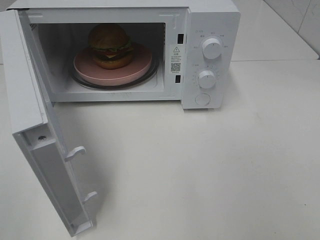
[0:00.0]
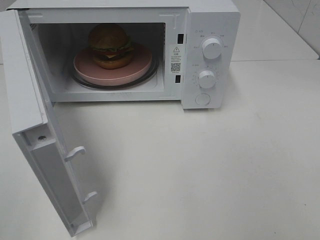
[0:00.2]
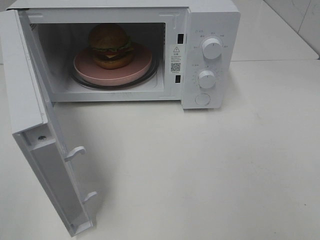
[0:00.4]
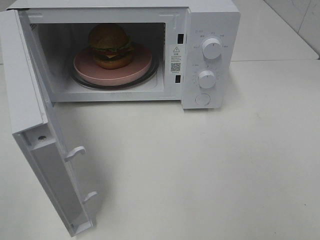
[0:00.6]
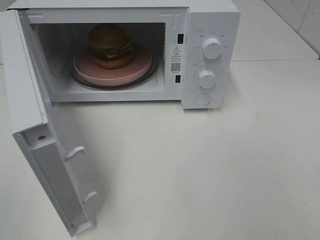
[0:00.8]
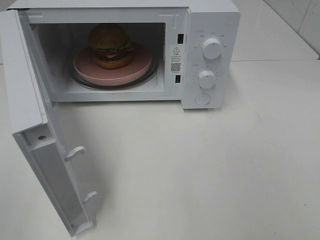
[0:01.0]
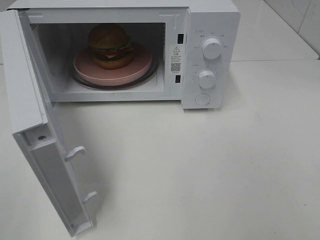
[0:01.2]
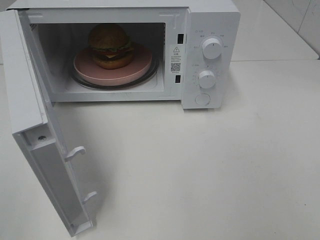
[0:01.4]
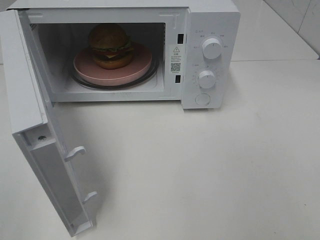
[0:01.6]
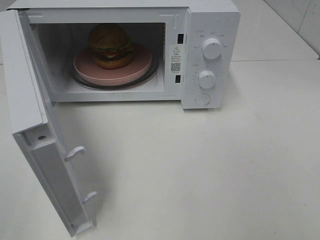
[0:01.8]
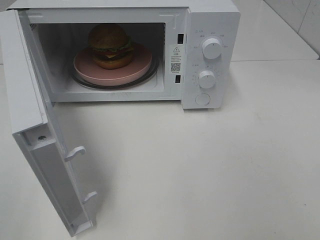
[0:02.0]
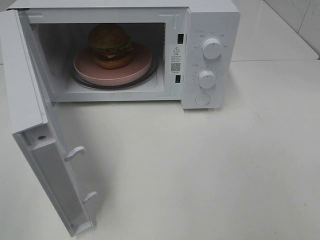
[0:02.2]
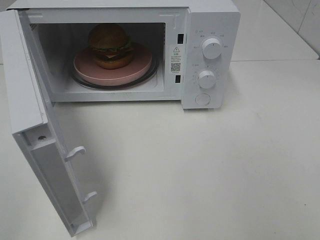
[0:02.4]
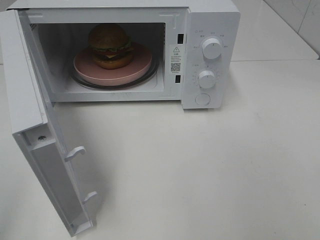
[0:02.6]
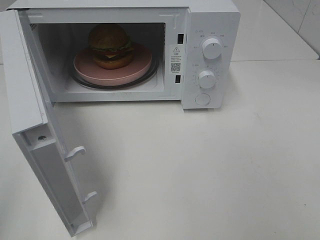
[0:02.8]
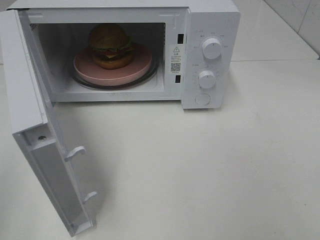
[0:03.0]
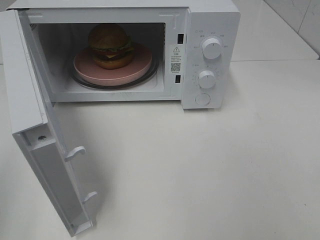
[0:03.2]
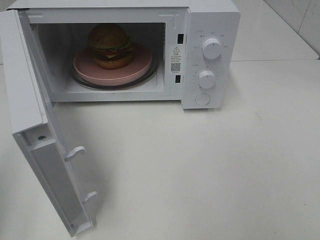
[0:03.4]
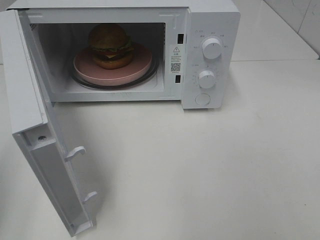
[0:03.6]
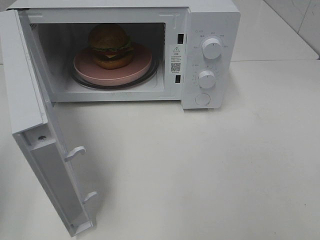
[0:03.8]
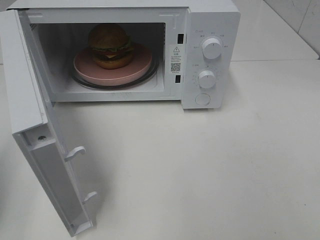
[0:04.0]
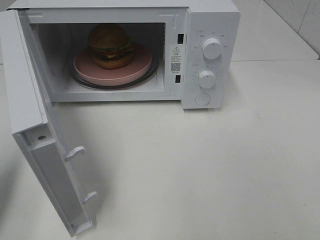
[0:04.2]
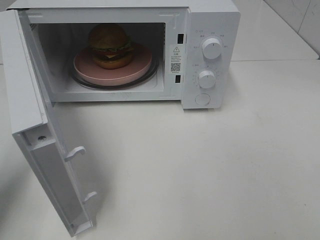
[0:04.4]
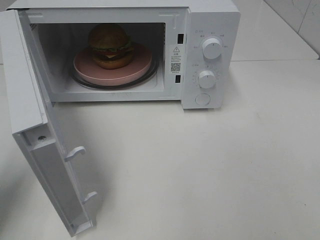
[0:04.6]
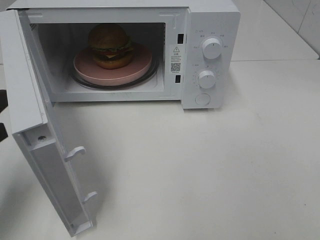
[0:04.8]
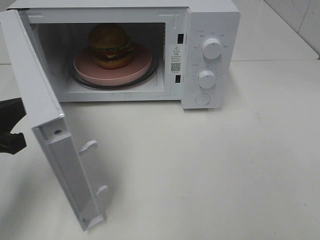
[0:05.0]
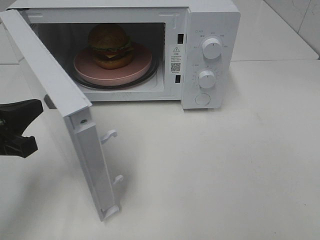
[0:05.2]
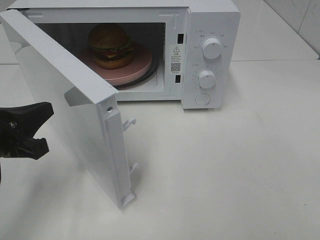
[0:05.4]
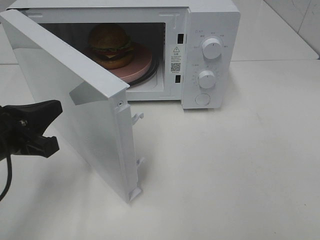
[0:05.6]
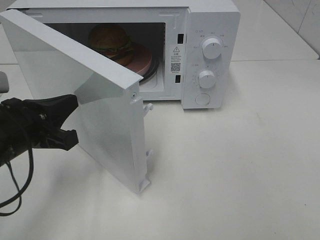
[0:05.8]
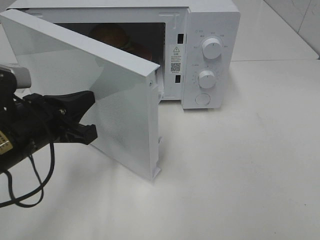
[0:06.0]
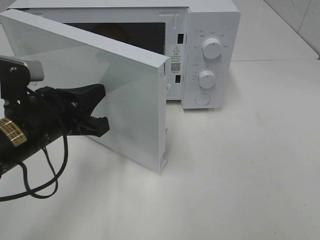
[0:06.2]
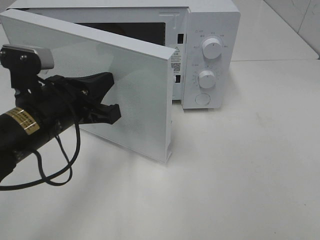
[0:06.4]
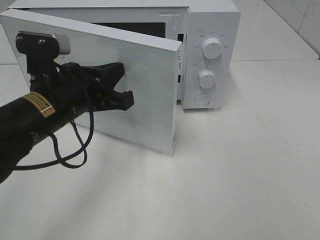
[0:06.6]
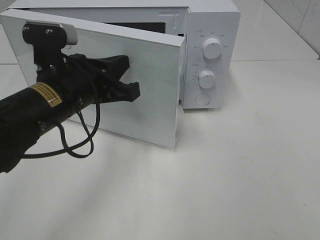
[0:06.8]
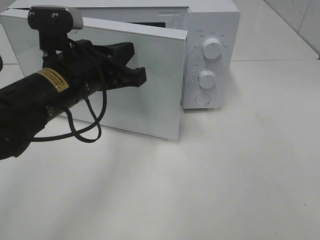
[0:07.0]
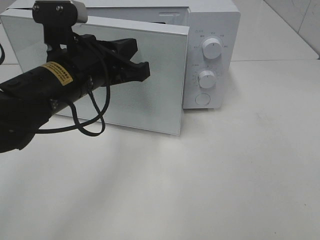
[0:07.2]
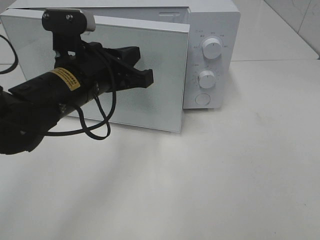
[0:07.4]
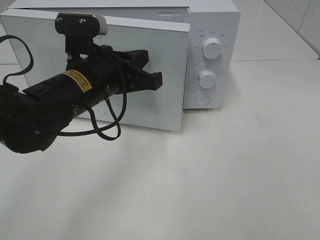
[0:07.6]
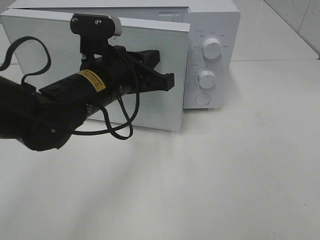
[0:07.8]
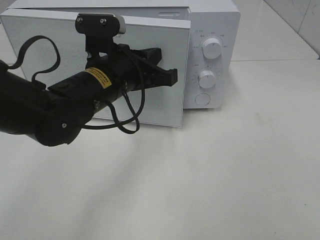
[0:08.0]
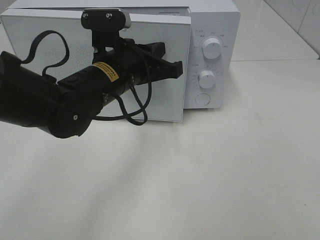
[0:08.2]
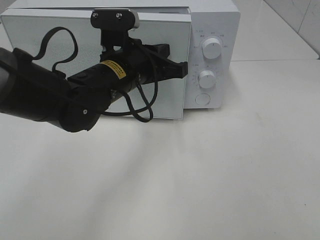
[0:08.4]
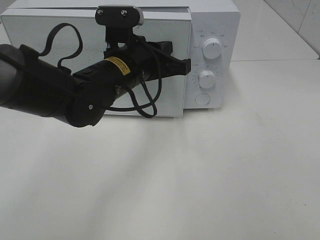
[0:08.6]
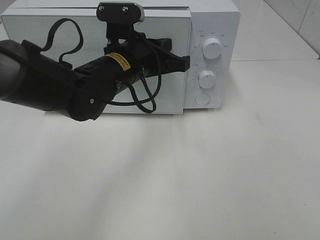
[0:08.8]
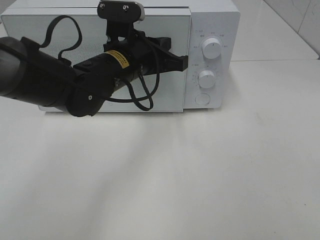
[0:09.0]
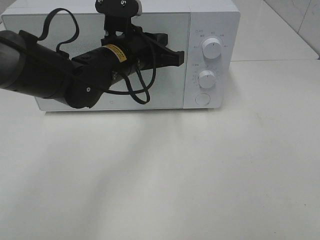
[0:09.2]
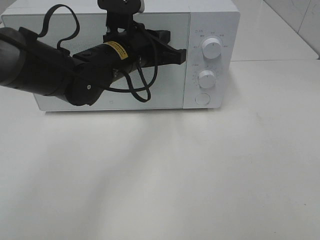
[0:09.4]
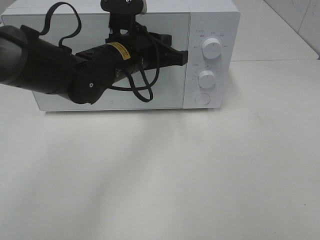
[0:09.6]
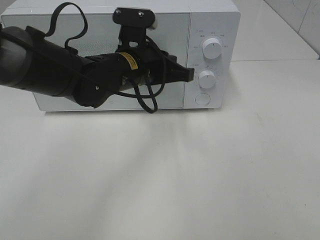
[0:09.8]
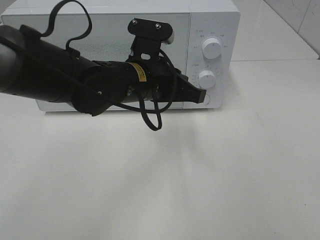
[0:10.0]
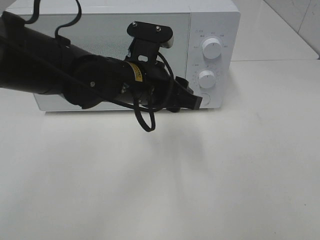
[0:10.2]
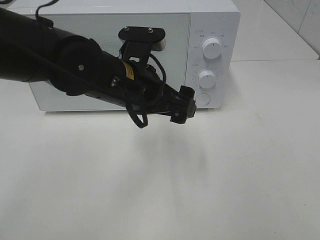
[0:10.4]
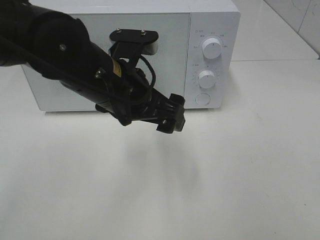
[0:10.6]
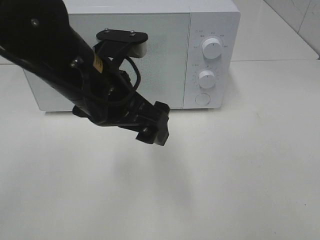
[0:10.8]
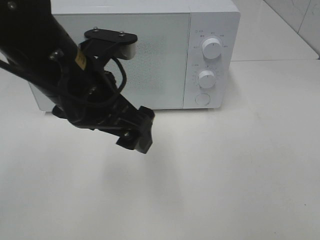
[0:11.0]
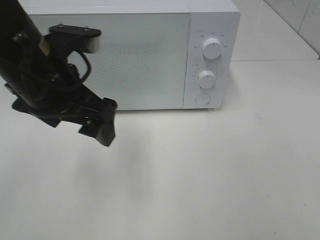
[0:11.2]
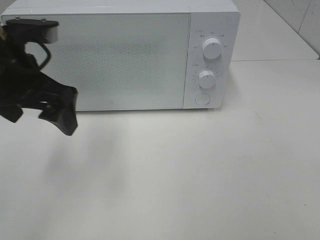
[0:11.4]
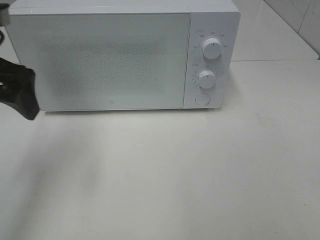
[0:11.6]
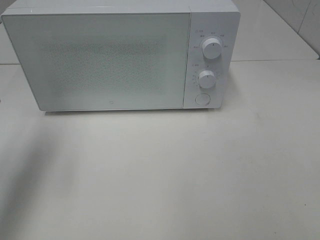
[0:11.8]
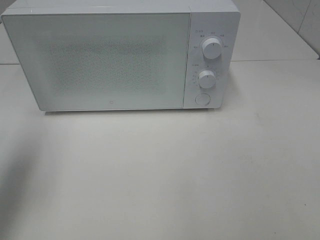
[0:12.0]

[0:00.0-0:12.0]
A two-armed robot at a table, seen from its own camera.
Task of the whole recording: Heat the burger.
Step, 0:00.0 to 0:09.6: Left hand: close the microwave door.
0:03.0 to 0:04.4: The left gripper travels forward and downward by some 15 cm.
0:04.4 to 0:06.0: The left gripper moves to the right, some 15 cm.
0:06.0 to 0:07.6: The left gripper moves to the right and forward, approximately 10 cm.
0:07.6 to 0:09.0: The left gripper travels forward by some 5 cm.
0:09.0 to 0:10.4: The left gripper is displaced backward by about 5 cm, and opens its fingers.
0:10.4 to 0:12.0: The left gripper heads to the left, covering some 25 cm.

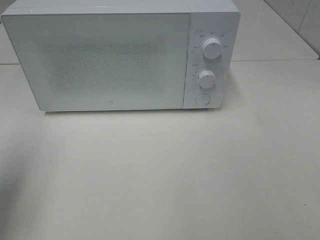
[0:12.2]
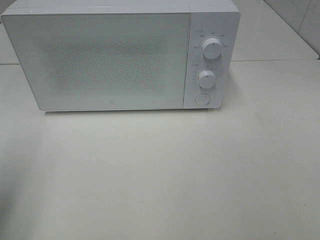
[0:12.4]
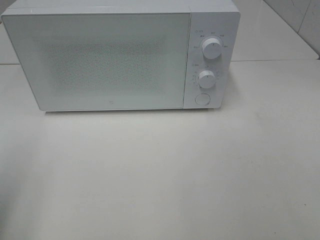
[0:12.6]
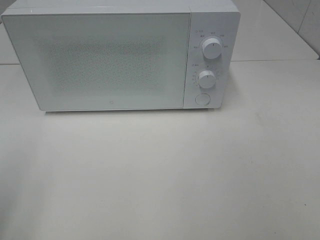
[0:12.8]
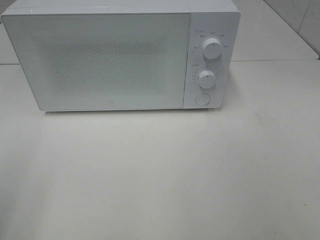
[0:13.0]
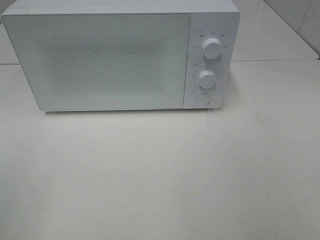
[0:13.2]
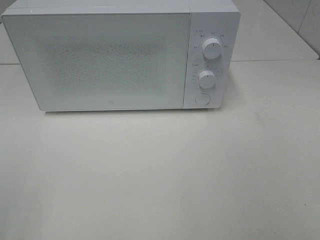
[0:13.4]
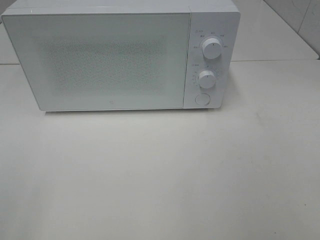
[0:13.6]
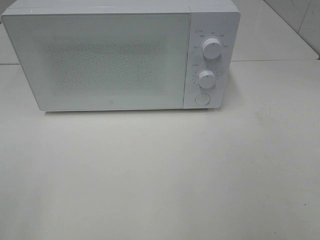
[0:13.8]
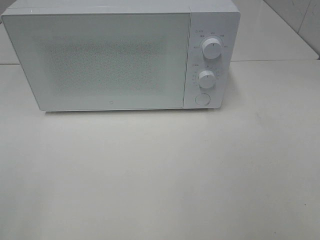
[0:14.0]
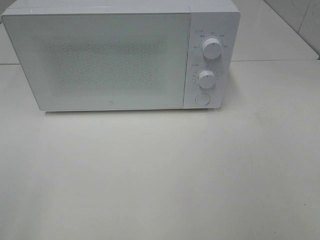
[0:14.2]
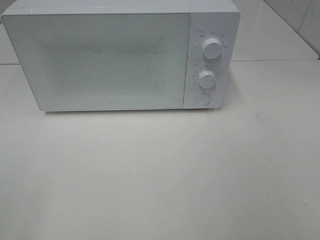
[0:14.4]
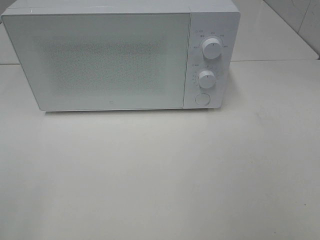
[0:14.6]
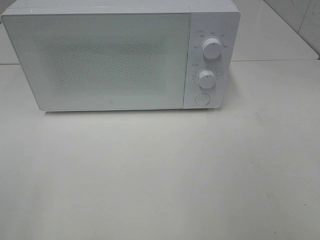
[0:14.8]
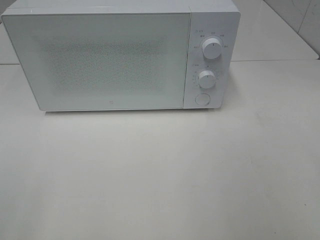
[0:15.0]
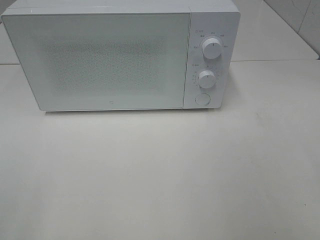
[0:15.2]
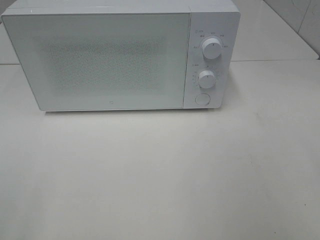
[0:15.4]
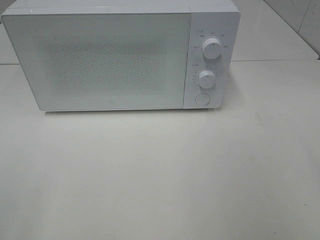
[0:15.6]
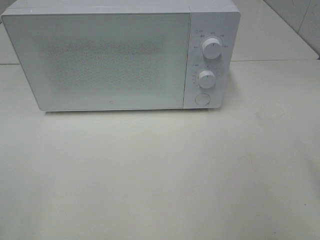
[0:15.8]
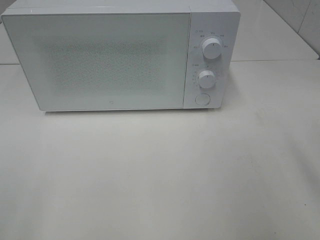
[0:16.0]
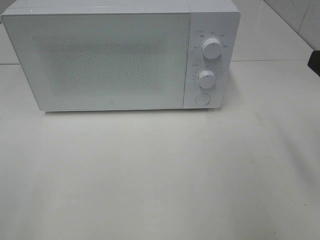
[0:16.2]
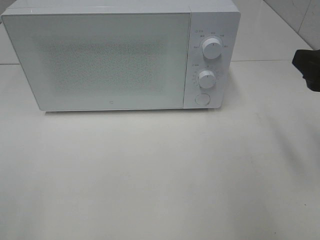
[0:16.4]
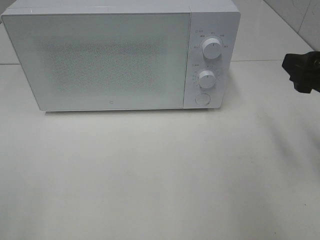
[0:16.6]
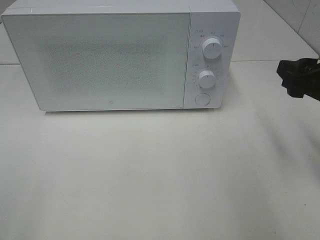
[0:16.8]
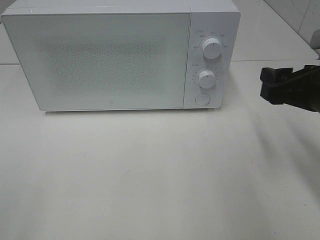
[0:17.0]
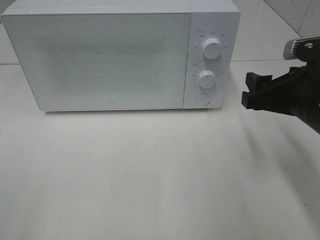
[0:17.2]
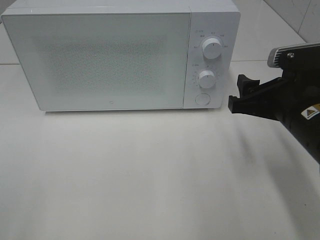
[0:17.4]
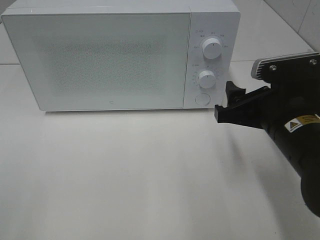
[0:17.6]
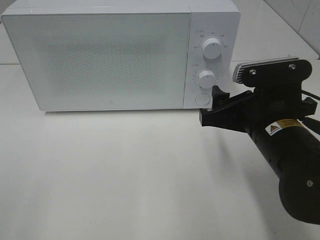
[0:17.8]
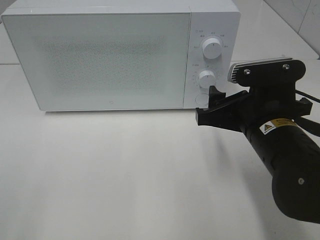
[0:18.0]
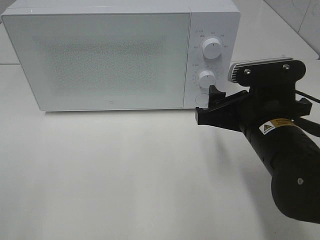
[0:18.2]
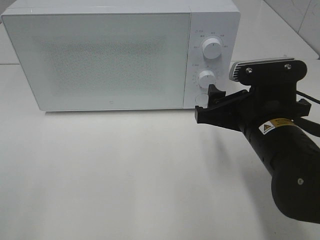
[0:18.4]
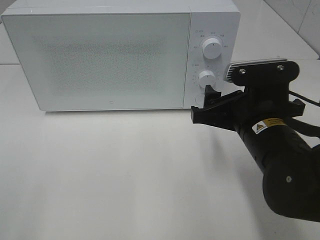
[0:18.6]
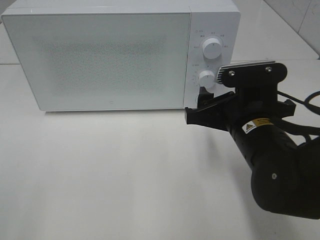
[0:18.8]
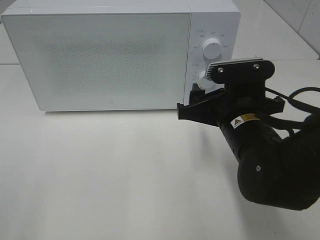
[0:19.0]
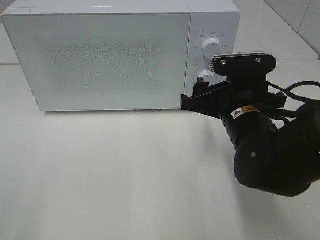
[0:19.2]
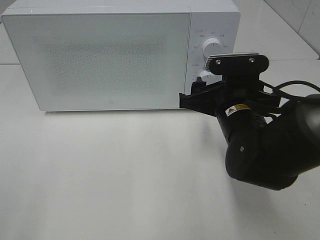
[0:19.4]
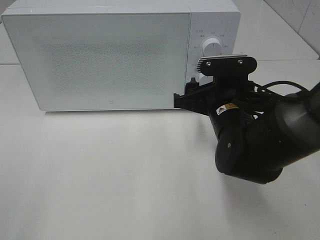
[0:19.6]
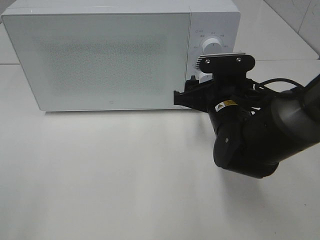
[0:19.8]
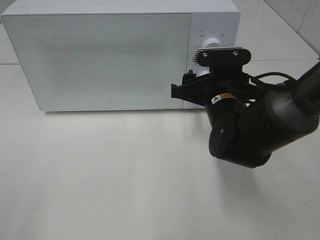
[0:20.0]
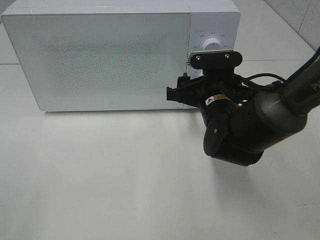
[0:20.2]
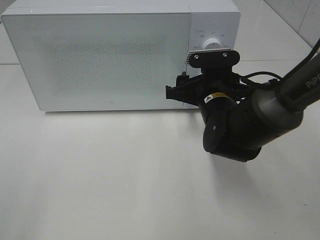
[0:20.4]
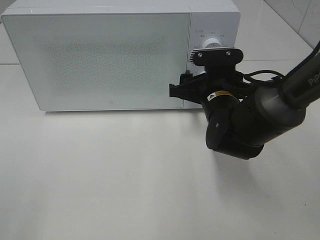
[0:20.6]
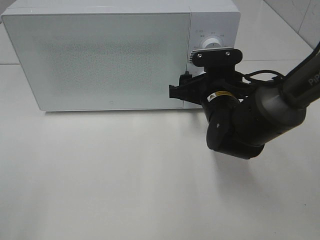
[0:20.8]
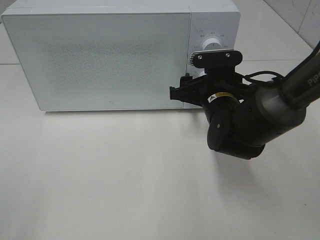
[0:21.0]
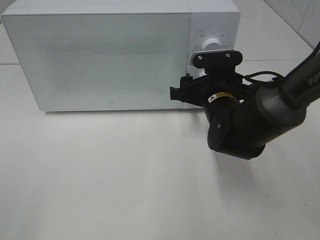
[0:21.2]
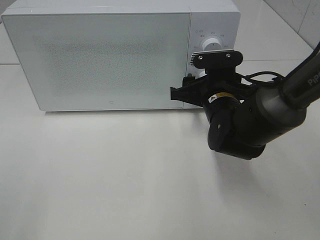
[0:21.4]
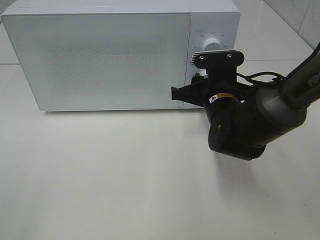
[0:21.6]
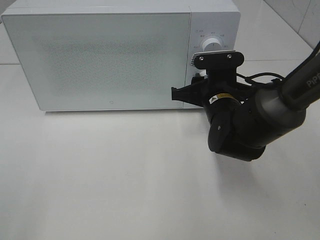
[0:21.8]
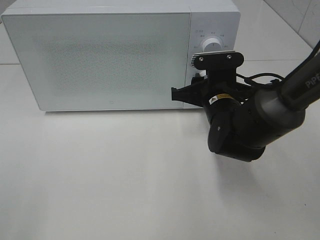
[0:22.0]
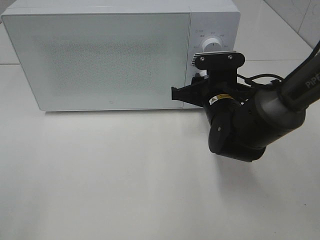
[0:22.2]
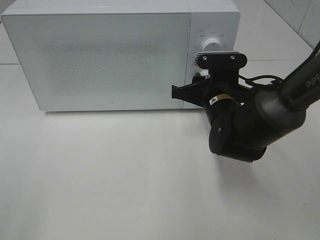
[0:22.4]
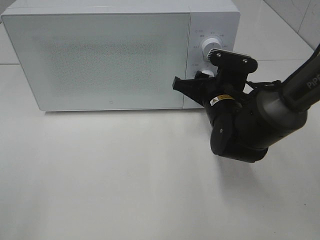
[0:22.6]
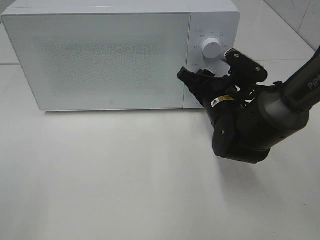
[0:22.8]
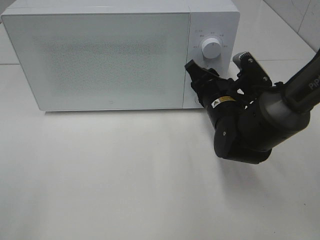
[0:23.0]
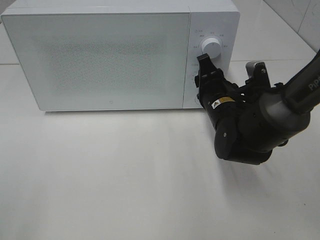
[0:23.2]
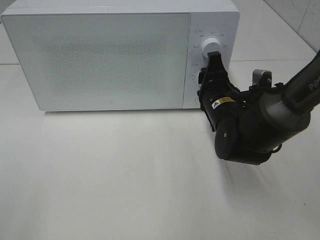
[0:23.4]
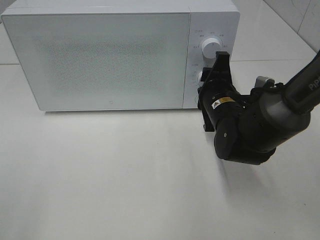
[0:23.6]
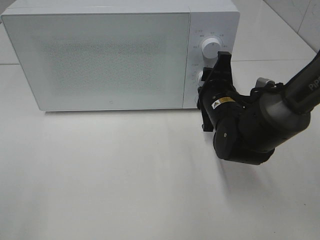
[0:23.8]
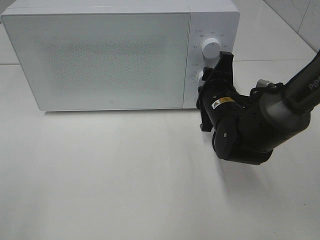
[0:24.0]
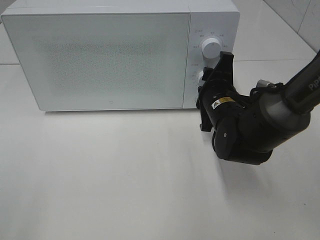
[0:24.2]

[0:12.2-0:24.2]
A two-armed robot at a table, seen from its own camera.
Task of the whole recording: Heat the burger.
0:12.2 to 0:13.8: The left gripper goes approximately 20 cm backward.
0:15.2 to 0:16.6: The right gripper travels forward and downward by approximately 15 cm.
0:16.6 to 0:18.2: The right gripper is displaced to the left and downward by roughly 15 cm.
0:18.2 to 0:19.8: The right gripper travels forward by about 10 cm.
0:19.8 to 0:21.2: The grippers stay close to where they were, moving slightly.
0:21.2 to 0:22.6: The right gripper closes its fingers.
